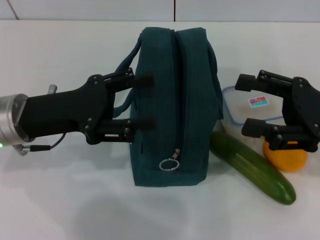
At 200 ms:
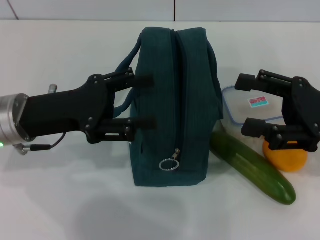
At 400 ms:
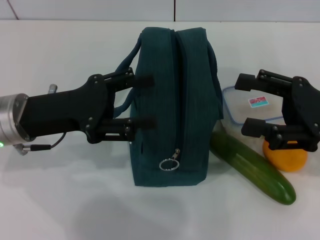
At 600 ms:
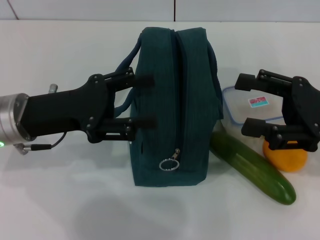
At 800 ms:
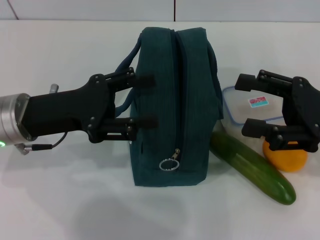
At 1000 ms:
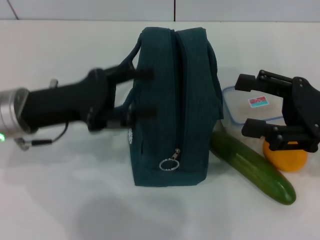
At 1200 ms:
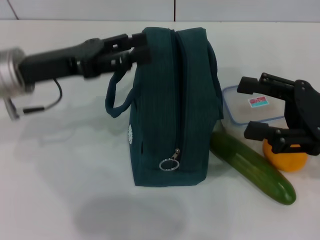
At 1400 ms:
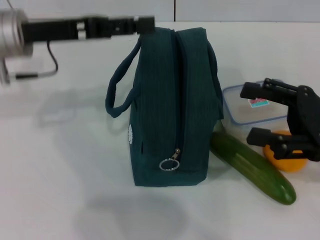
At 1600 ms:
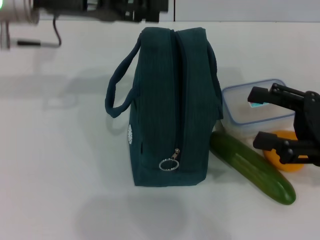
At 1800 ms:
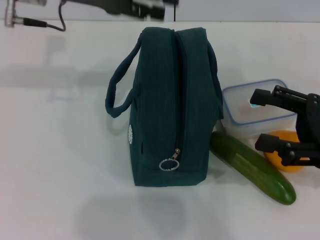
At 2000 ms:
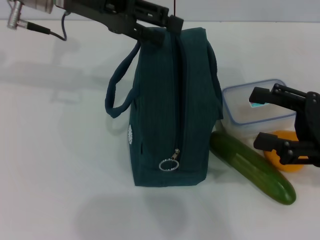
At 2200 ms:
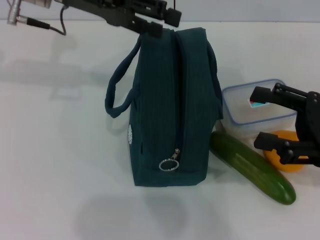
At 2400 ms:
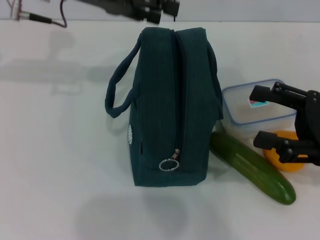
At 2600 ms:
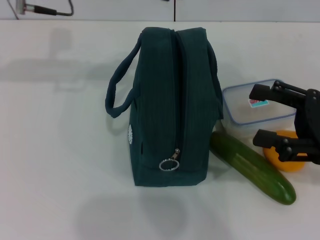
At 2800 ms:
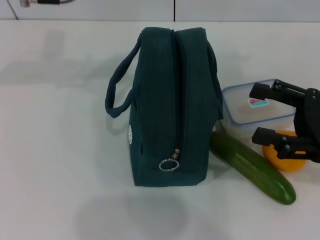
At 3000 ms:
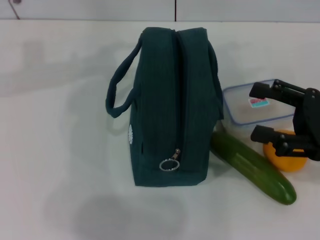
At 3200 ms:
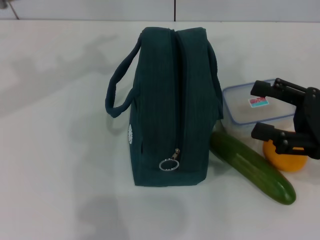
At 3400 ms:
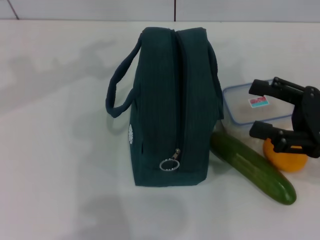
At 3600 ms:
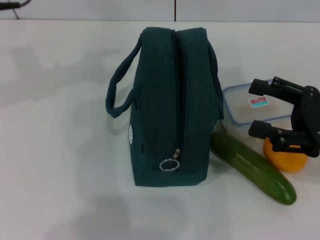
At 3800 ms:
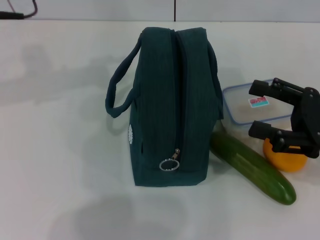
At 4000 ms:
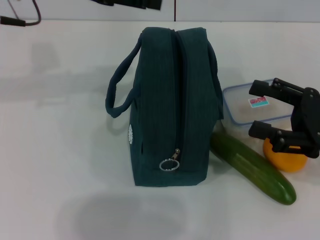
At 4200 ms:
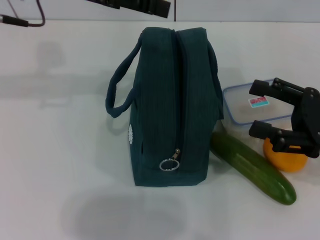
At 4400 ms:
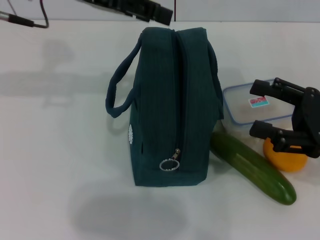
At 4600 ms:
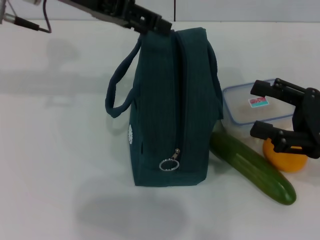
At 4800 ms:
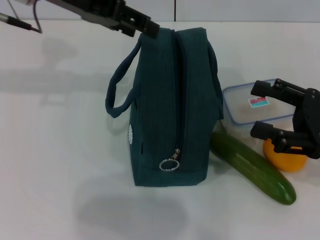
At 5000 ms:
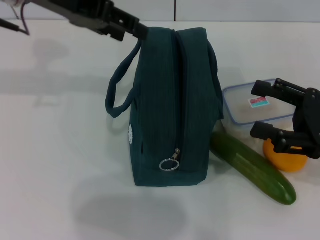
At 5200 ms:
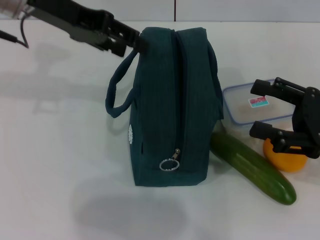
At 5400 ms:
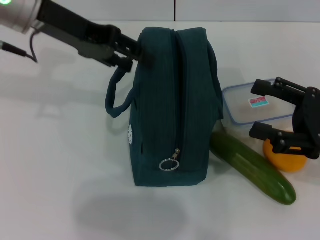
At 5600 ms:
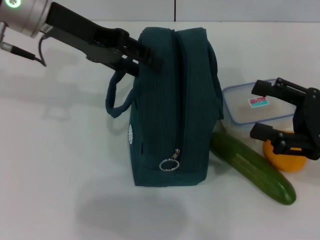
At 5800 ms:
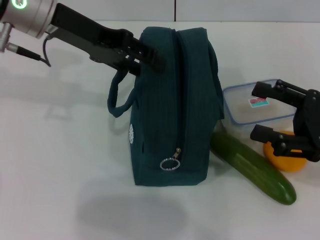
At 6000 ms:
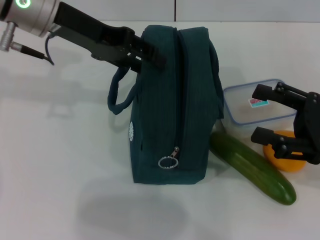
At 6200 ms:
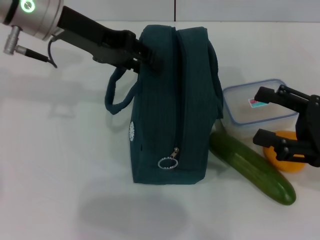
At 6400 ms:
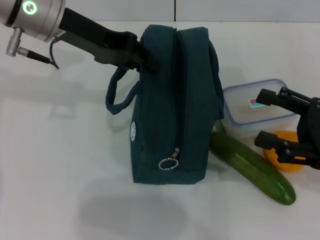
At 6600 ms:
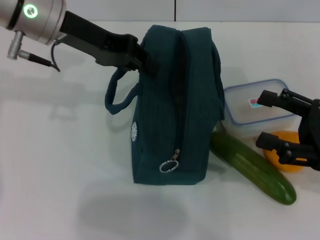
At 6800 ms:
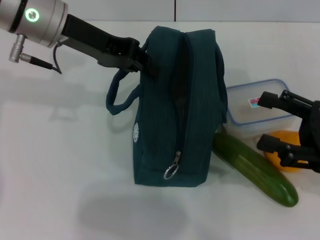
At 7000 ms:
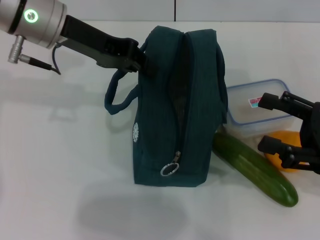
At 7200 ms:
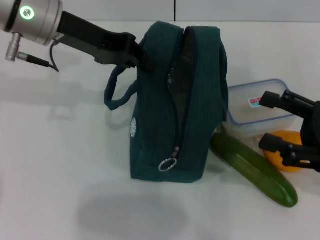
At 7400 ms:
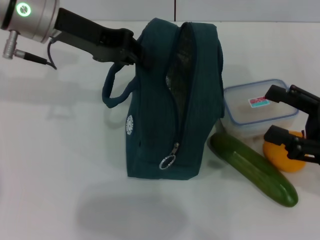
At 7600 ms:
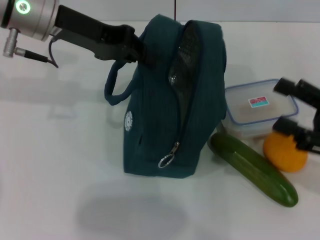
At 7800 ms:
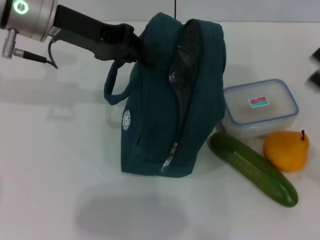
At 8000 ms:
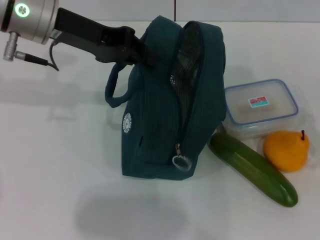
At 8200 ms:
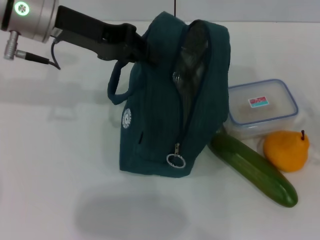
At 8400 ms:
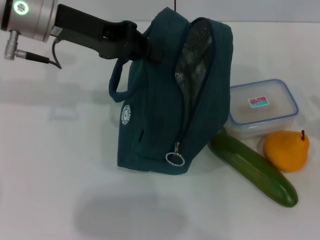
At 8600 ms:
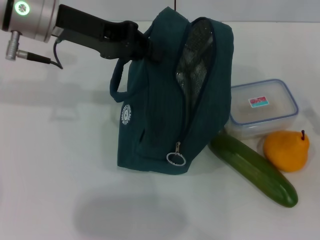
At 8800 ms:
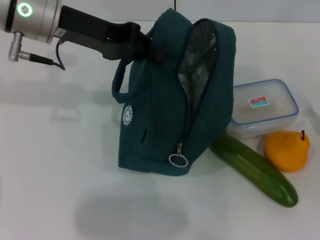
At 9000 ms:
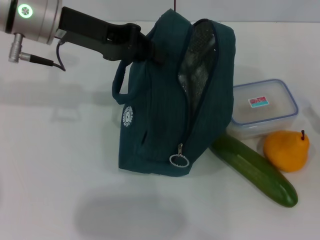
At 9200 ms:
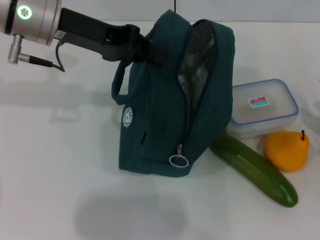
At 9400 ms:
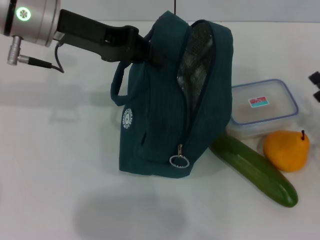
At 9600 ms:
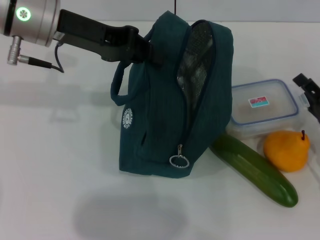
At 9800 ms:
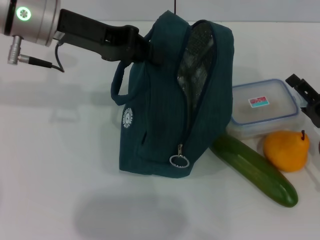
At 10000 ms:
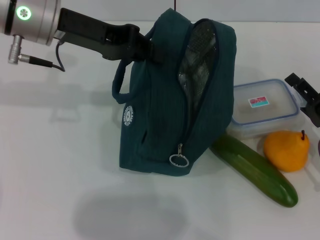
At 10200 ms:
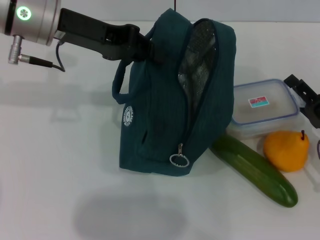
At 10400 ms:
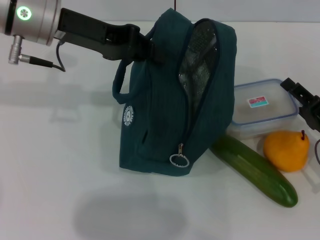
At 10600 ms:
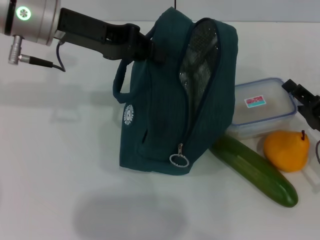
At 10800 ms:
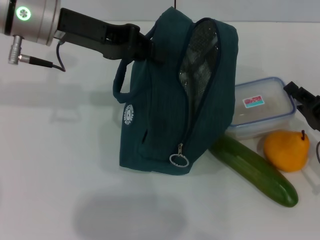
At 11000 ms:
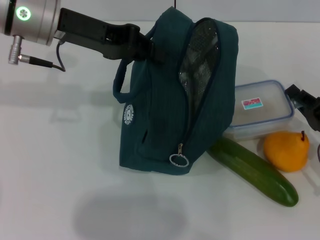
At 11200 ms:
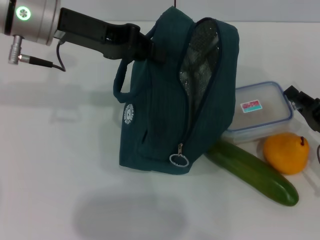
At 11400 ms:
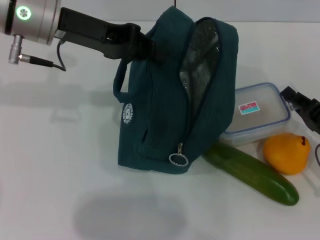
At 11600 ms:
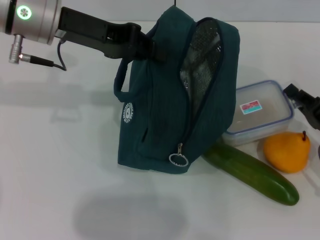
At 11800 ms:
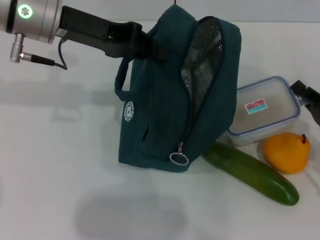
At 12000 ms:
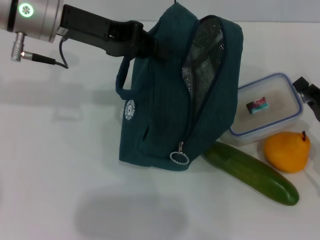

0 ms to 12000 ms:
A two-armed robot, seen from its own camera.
Step, 0 ms to 7400 ms: Hold the lunch bag with your left hand.
Step, 7800 ms to 11400 ms: Pick up the lunch box with your right hand.
0 ms to 1600 ms: The left gripper goes some 15 cm forward and upward.
6000 ms to 7600 ms: The left gripper closes up.
7600 ms to 9000 ms: The right gripper shifts roughly 10 cm downward.
9000 ms to 10400 ms: The right gripper ends up roughly 5 cm from where it was.
10400 ms to 12000 ms: The right gripper closes.

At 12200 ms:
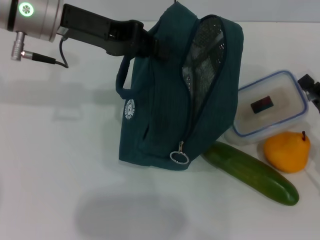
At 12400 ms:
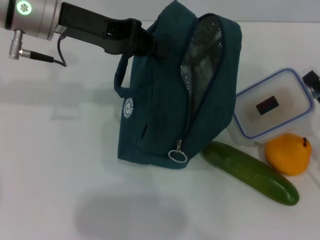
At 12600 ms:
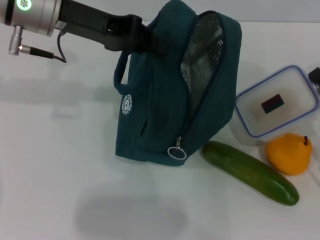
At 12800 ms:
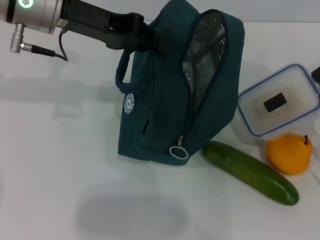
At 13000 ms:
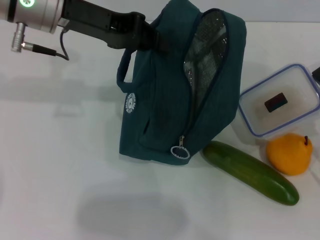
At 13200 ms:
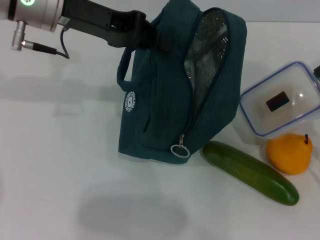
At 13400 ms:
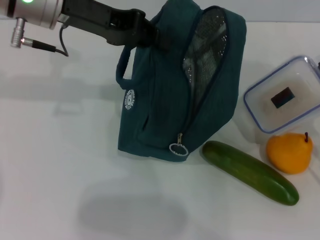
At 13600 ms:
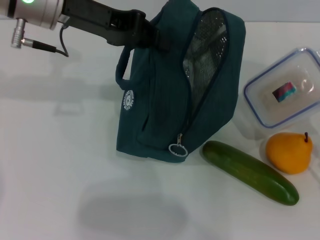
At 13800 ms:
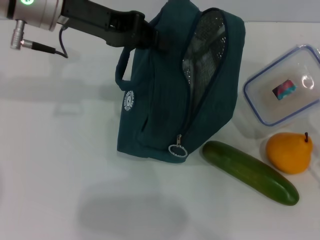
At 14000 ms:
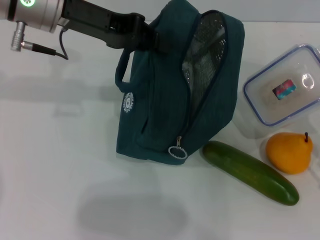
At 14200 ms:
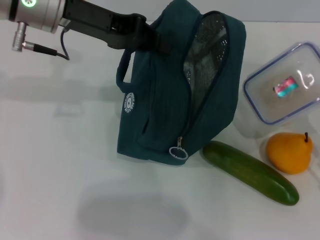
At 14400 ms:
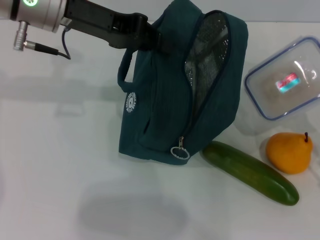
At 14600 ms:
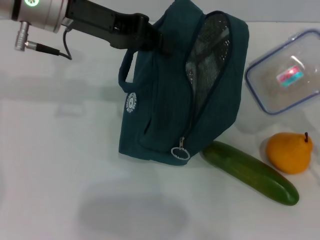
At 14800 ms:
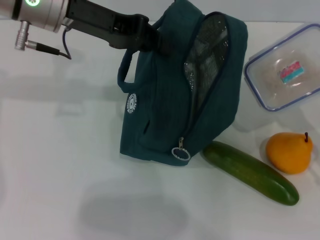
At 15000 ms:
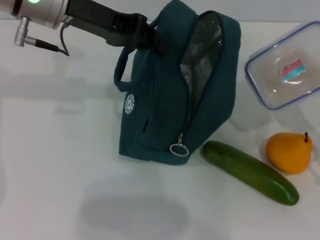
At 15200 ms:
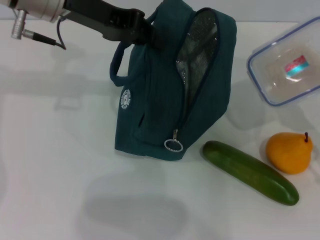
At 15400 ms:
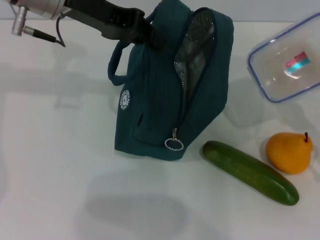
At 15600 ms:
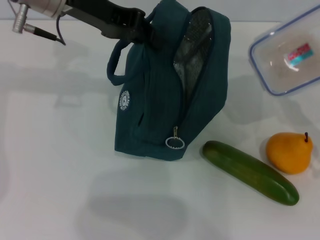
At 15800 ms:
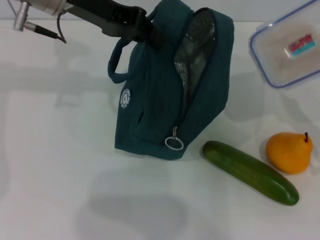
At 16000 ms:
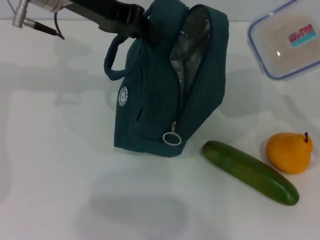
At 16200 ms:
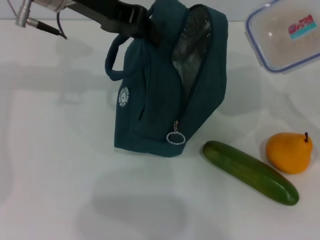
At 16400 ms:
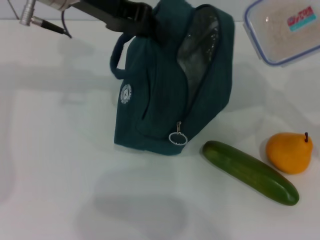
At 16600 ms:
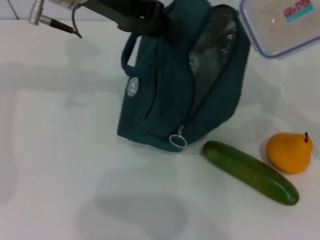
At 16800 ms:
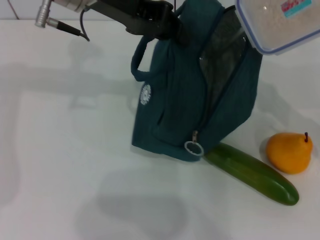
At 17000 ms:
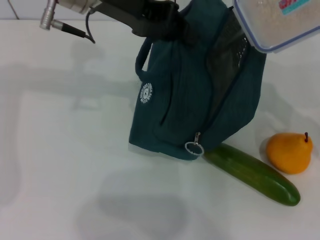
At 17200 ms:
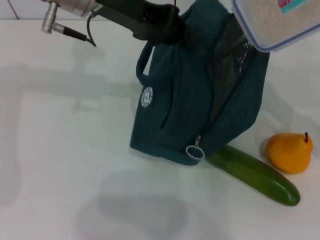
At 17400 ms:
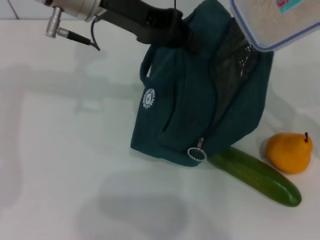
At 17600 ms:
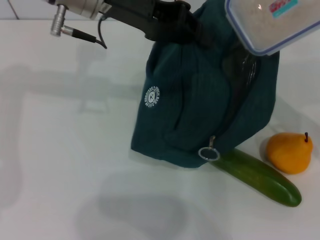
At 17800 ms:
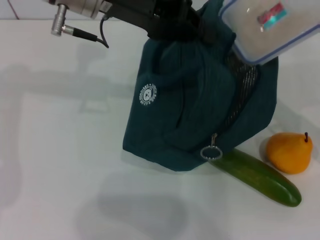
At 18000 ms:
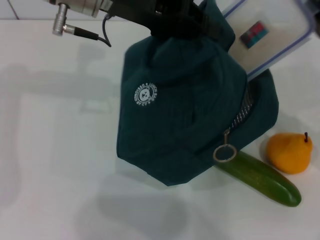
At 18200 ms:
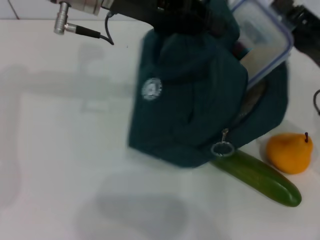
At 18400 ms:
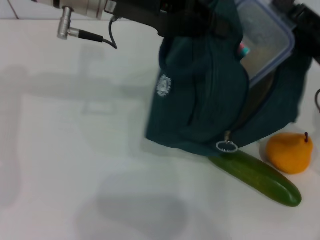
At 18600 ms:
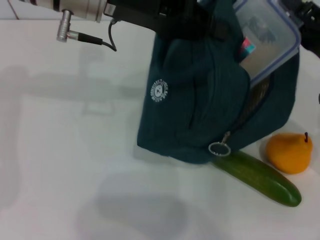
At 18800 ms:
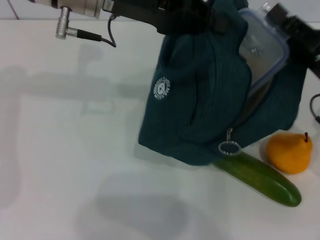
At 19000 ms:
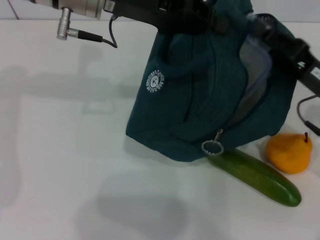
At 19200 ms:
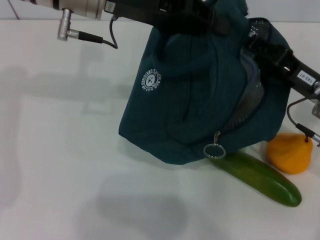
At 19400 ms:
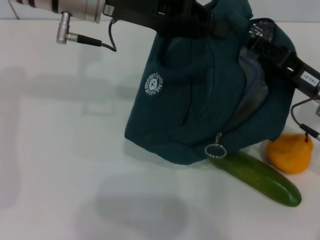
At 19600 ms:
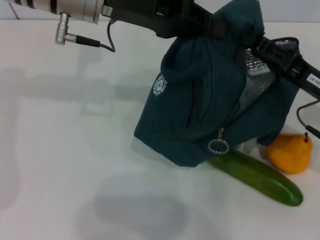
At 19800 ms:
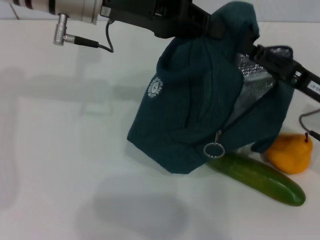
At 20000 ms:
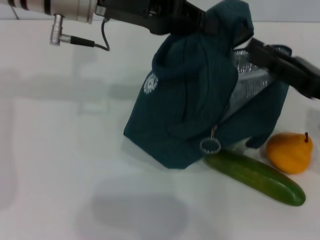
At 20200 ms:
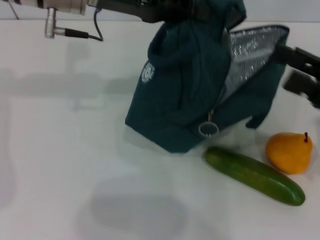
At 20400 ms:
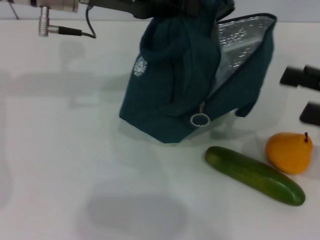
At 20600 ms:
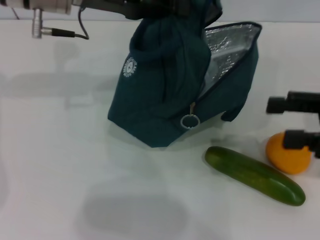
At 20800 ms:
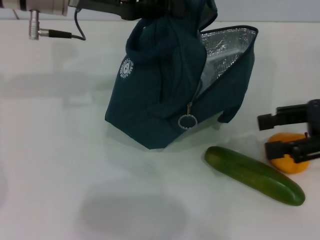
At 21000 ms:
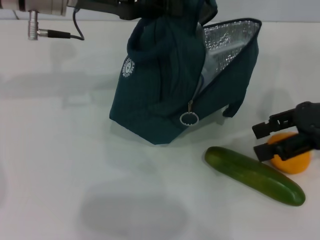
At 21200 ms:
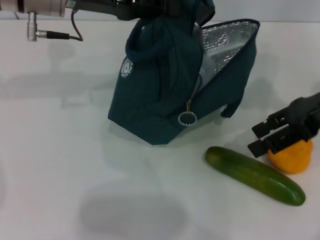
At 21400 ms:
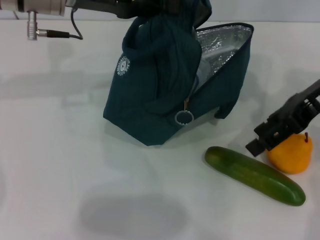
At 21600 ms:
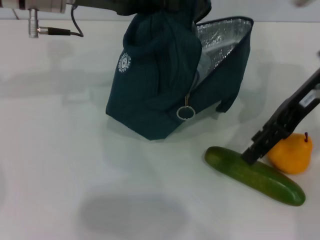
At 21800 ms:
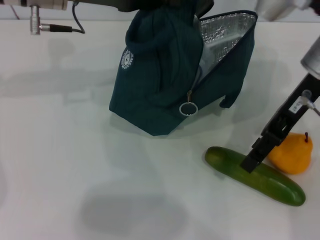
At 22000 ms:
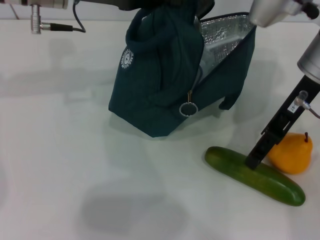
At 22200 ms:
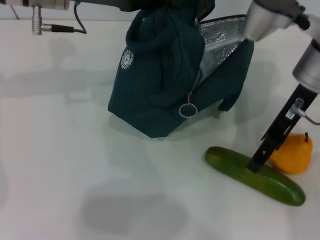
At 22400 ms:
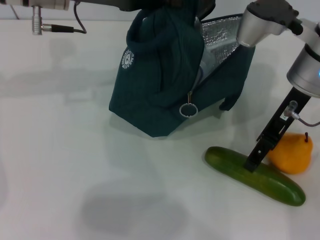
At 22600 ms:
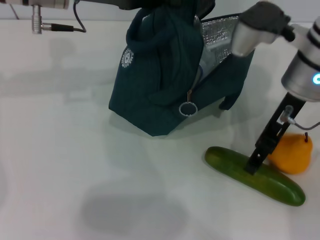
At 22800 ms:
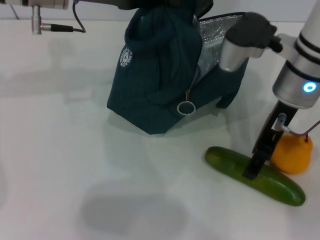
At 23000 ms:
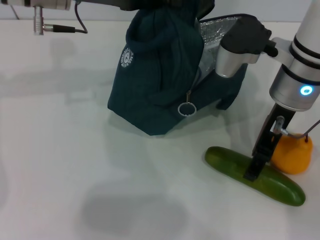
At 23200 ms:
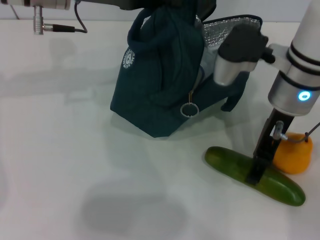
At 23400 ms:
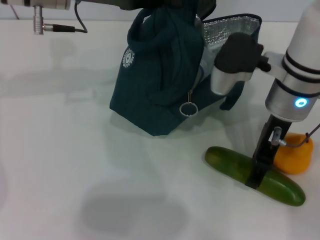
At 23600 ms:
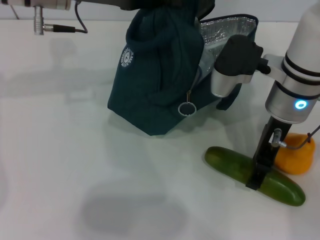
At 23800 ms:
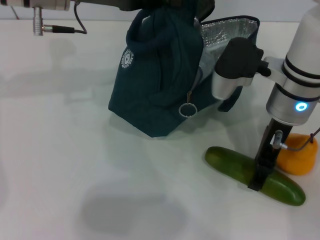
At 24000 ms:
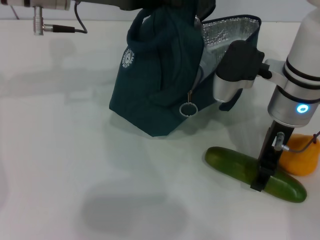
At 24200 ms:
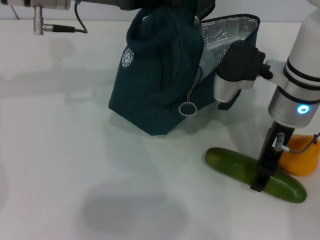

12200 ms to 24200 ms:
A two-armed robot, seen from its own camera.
Step, 12200 ms to 19600 ms: Place the lunch box into the lunch bag with your right hand.
Step, 19800 ms to 24200 ms: Pick up the cucumber with your right hand.
12200 ms to 13800 ms: The grippers make only small movements.
13800 ms to 15200 ms: The grippers make only small movements.
15200 ms to 16600 ms: The right gripper shifts by approximately 5 cm.
18200 ms to 19800 ms: The grippers make only small movements.
19800 ms to 21200 ms: The right gripper moves upward, some 10 cm, and opens up.
21200 ms to 22600 ms: The right gripper travels to the left by roughly 10 cm.
22600 ms to 24200 ms: The grippers move only a little.
